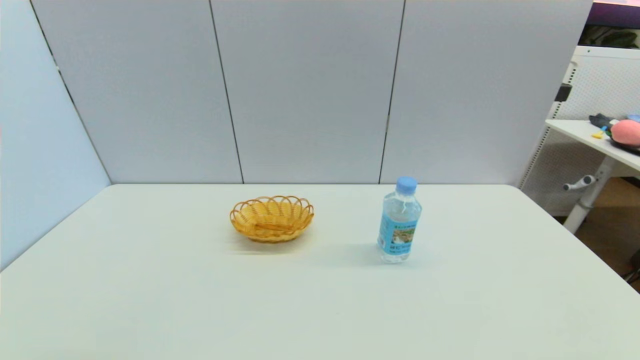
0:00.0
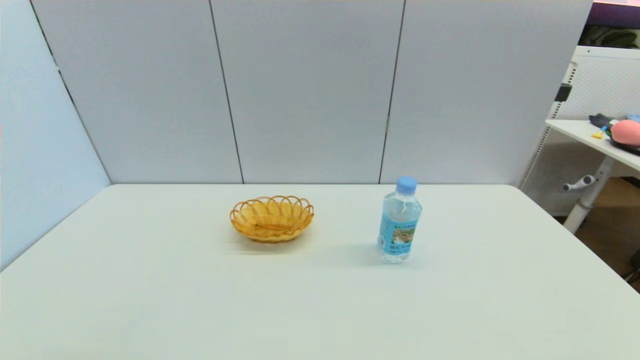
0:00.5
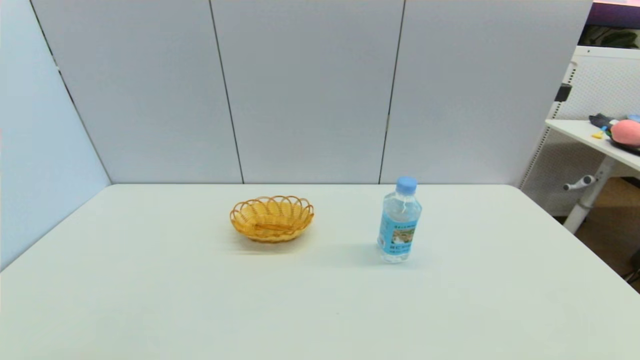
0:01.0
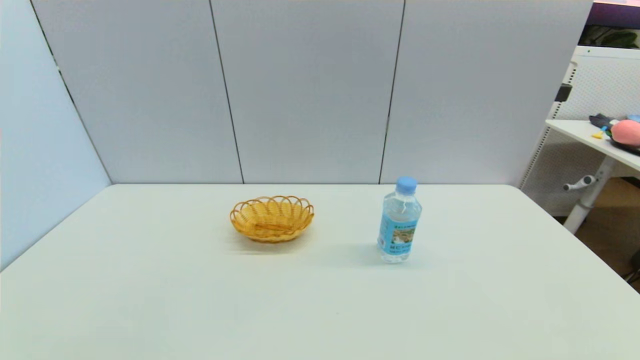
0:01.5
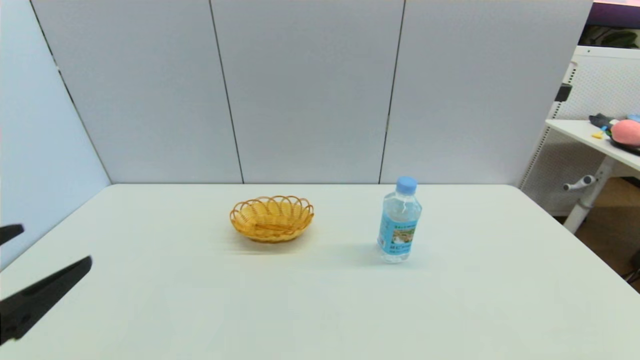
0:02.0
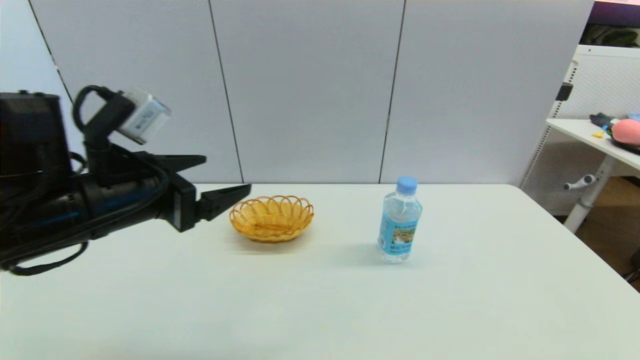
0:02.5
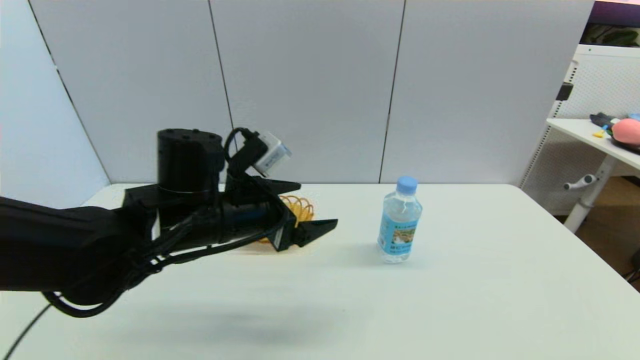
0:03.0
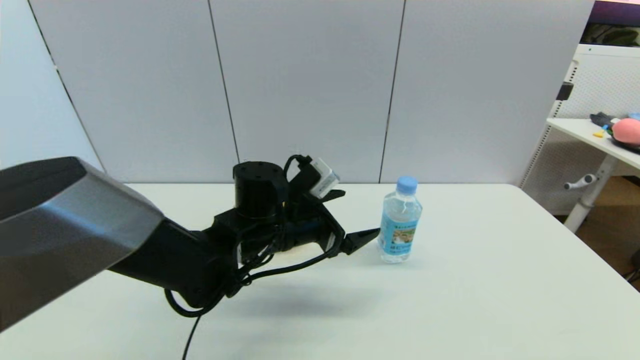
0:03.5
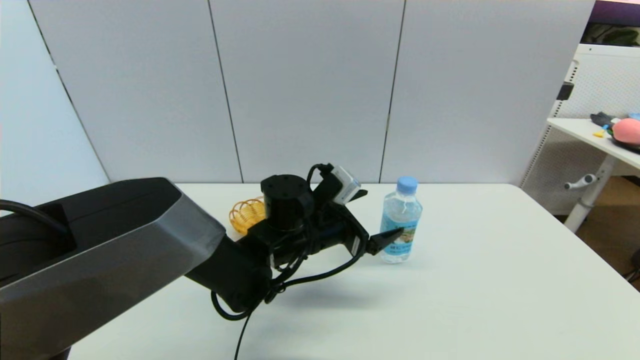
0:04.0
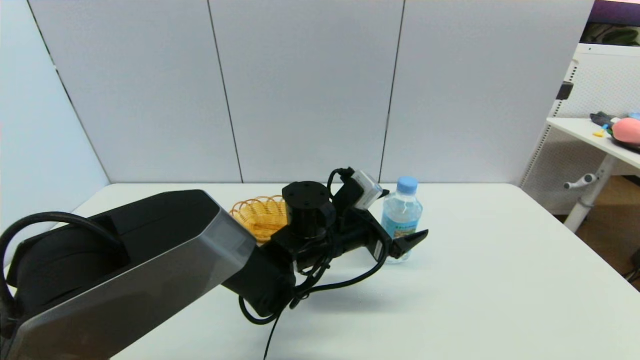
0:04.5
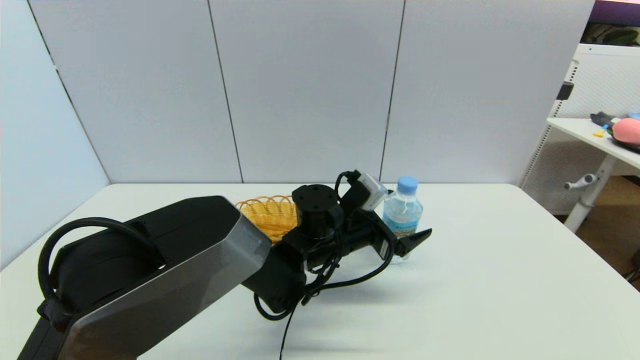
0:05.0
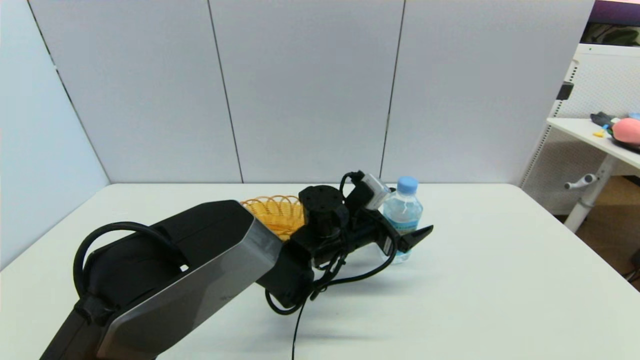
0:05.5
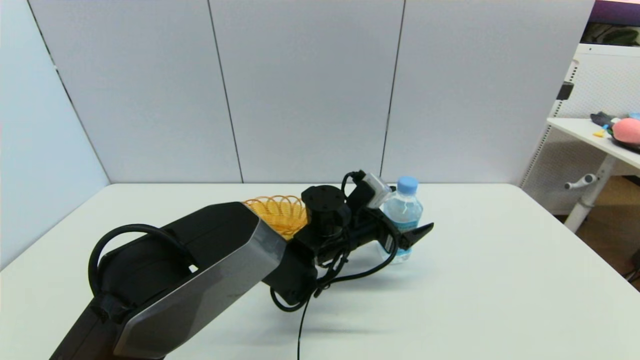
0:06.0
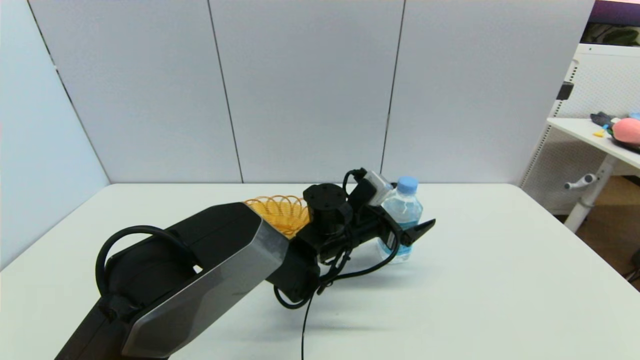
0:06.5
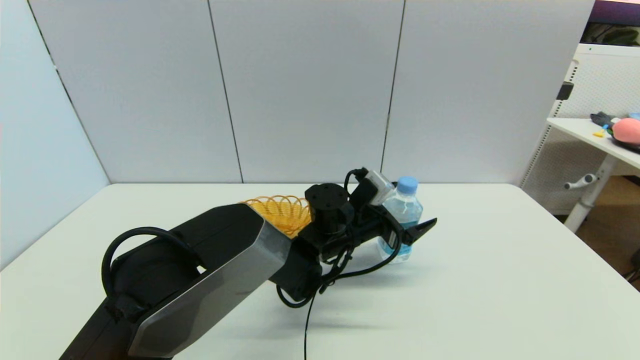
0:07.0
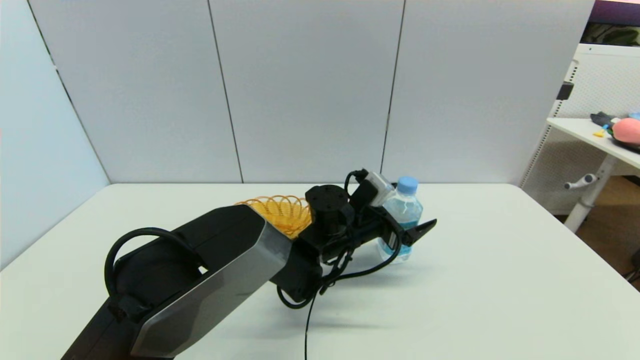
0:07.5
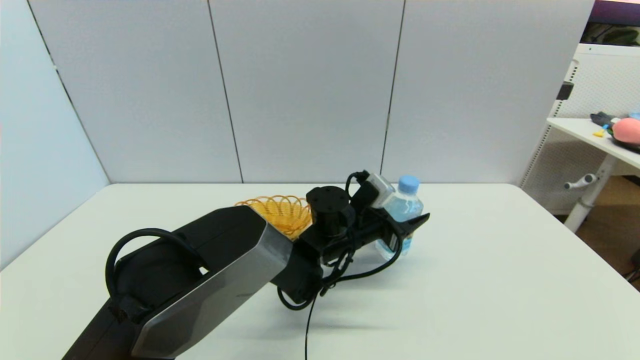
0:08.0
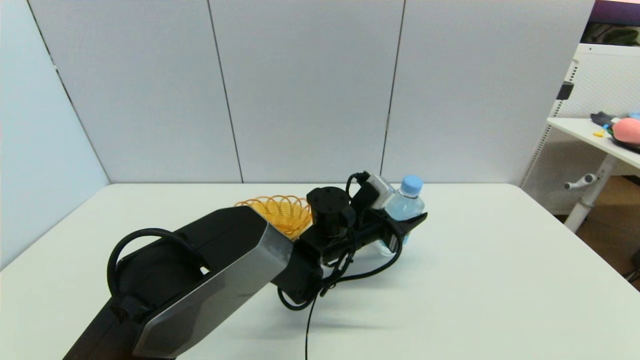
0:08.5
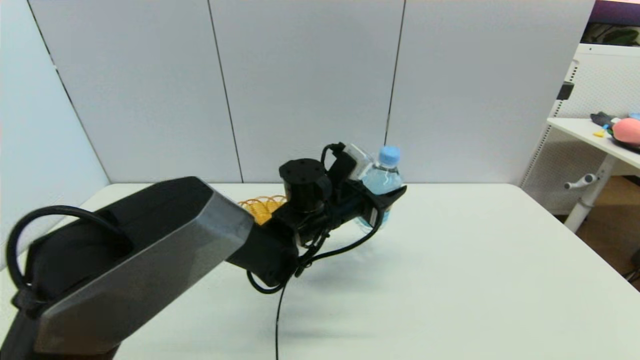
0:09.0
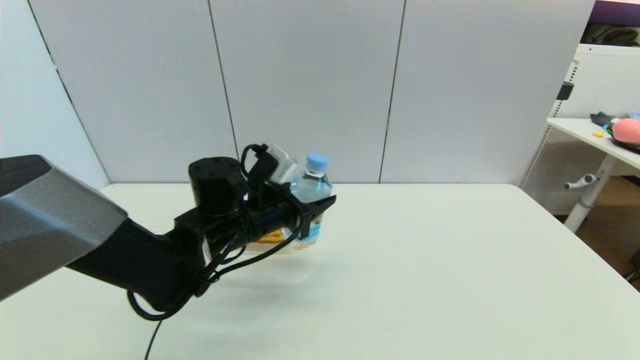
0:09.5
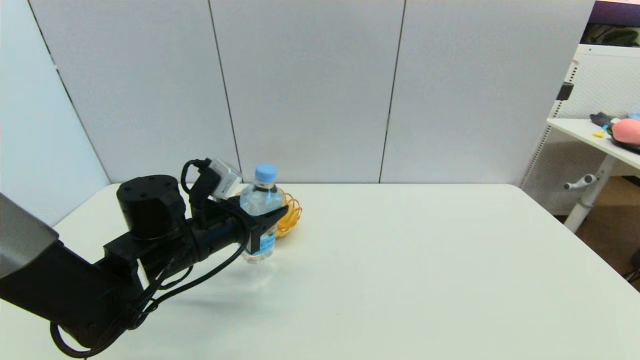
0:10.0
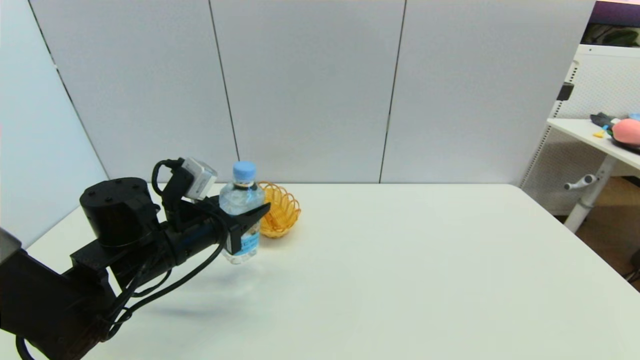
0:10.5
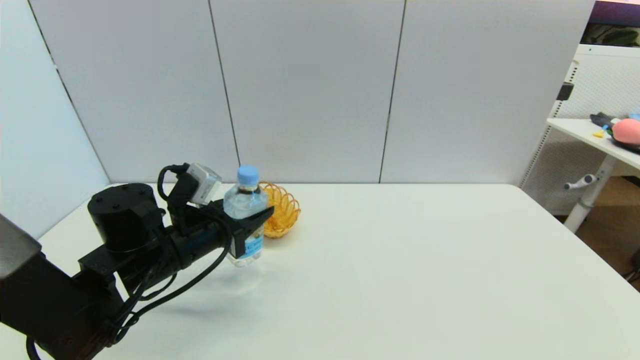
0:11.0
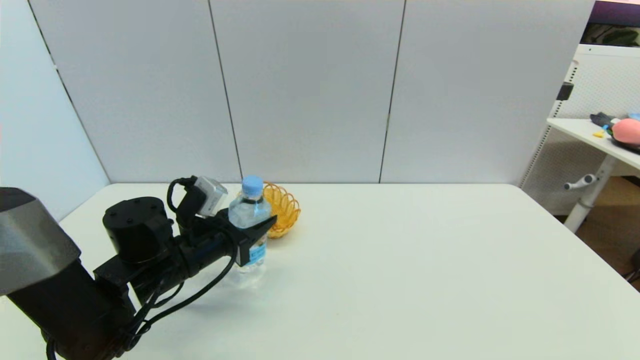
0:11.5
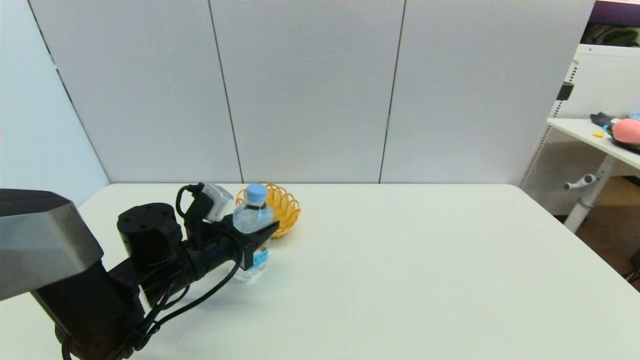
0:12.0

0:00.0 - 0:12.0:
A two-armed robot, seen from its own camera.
Step, 0:01.5 - 0:08.0: Grasp the soda water with left gripper.
0:00.0 - 0:02.0: The left gripper moves upward and forward, approximately 15 cm.
0:02.0 - 0:04.0: The left gripper goes roughly 40 cm to the right, forward and downward.
0:04.0 - 0:06.0: The left gripper moves to the right, about 5 cm.
0:06.0 - 0:08.0: The left gripper closes.
0:08.0 - 0:10.0: The left gripper heads to the left, covering about 20 cm.
0:10.0 - 0:12.0: The grippers stay close to where they were, moving slightly.

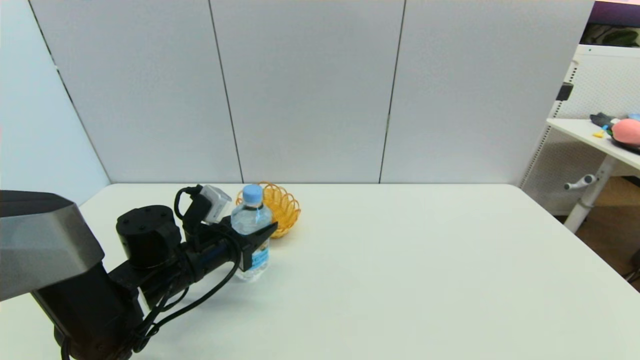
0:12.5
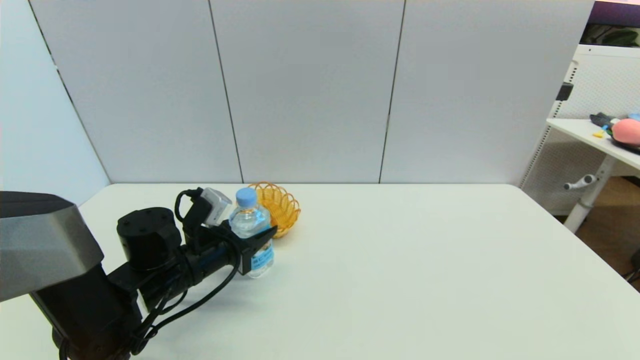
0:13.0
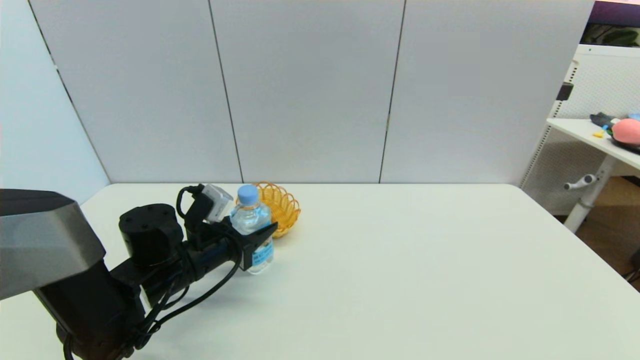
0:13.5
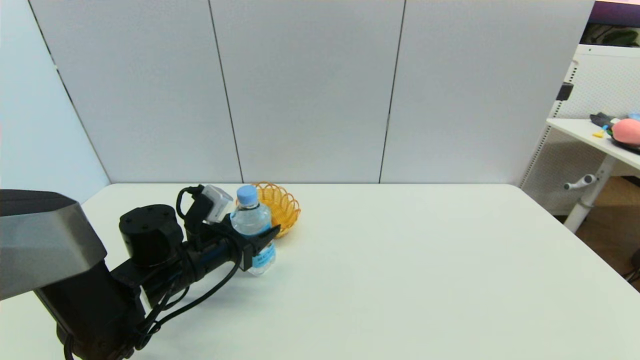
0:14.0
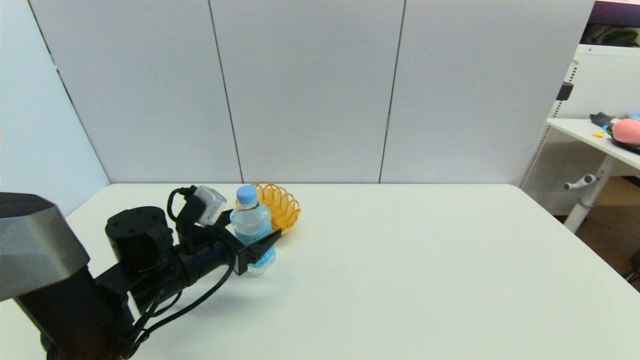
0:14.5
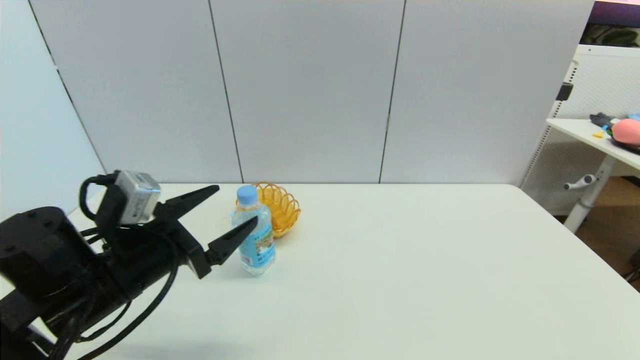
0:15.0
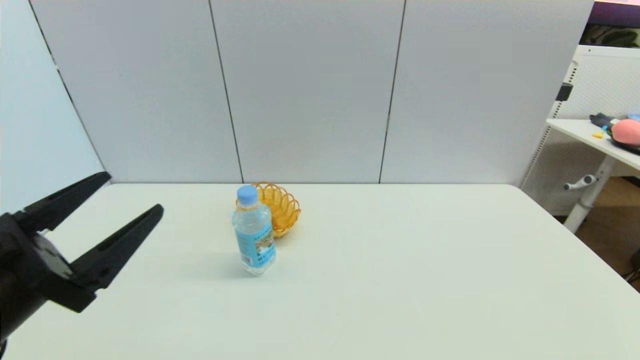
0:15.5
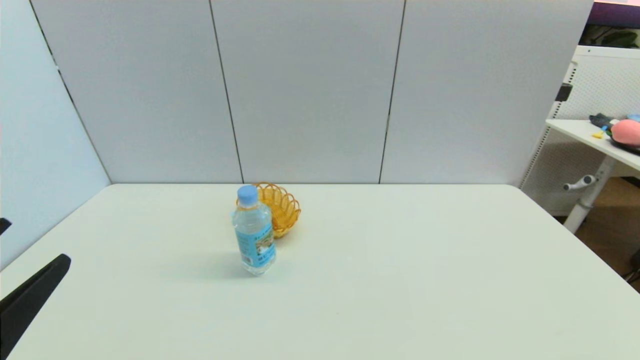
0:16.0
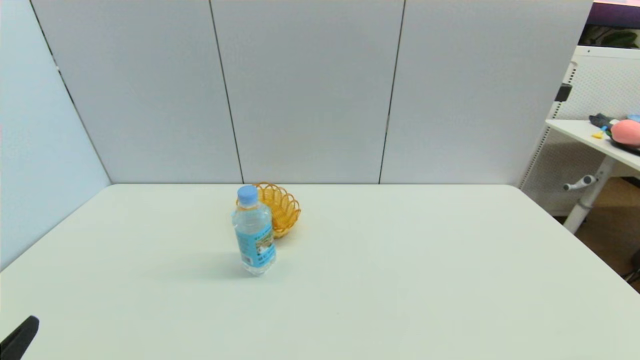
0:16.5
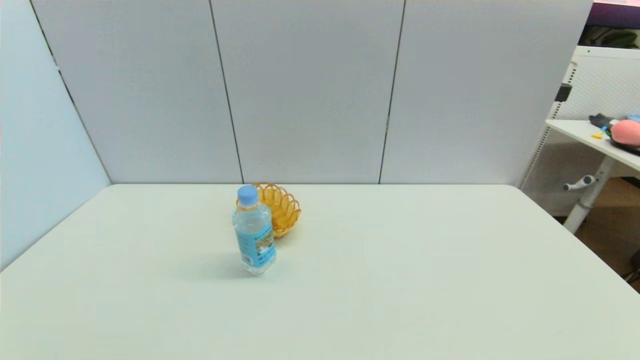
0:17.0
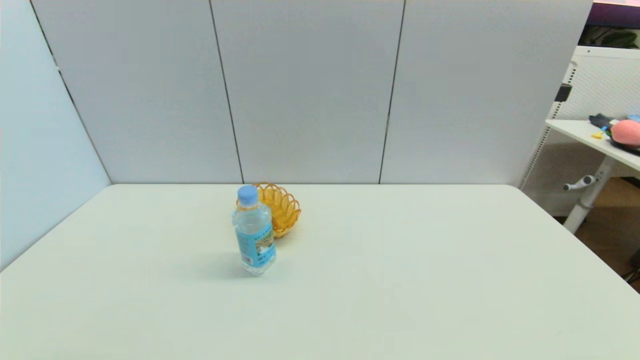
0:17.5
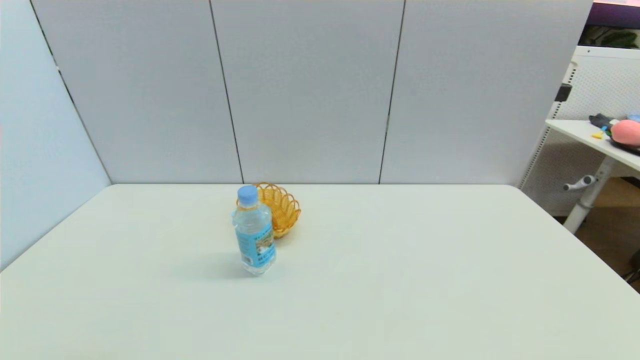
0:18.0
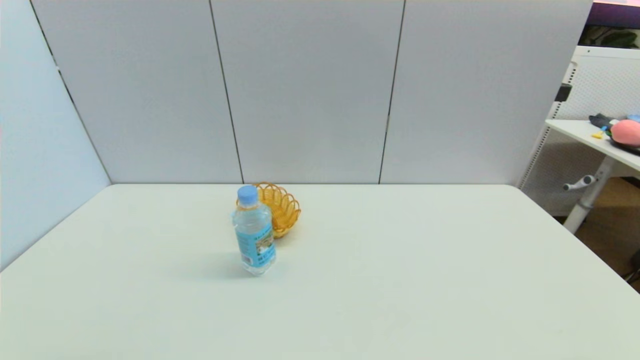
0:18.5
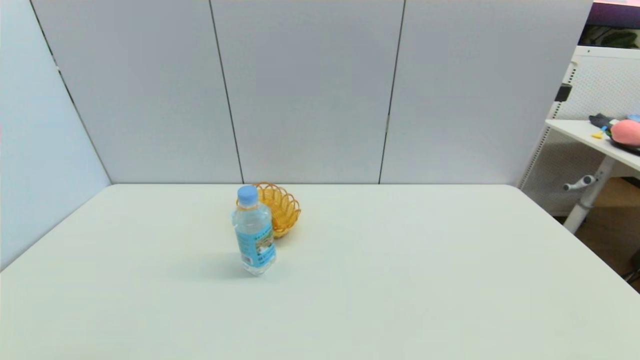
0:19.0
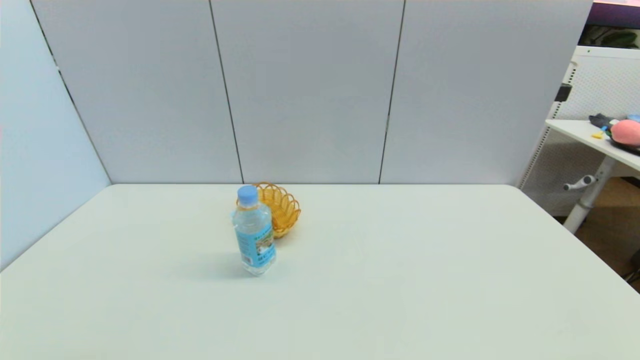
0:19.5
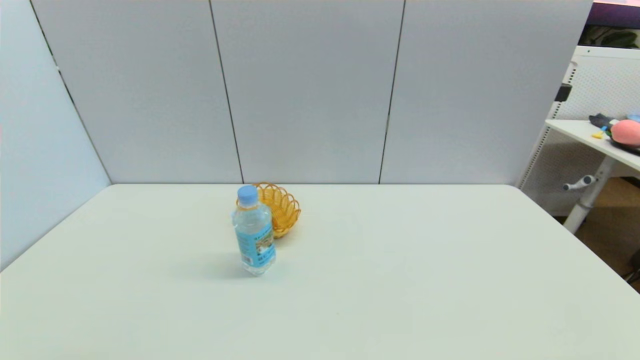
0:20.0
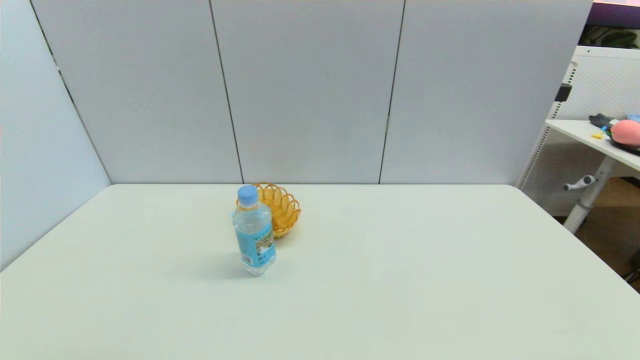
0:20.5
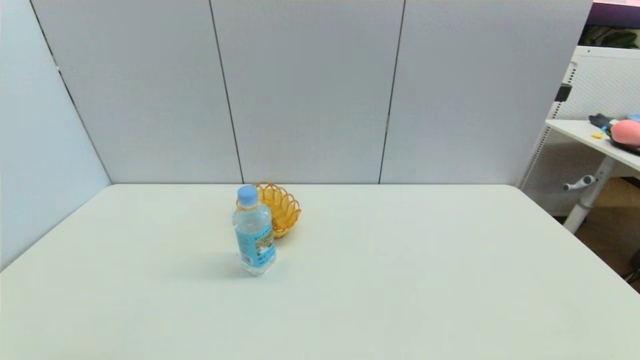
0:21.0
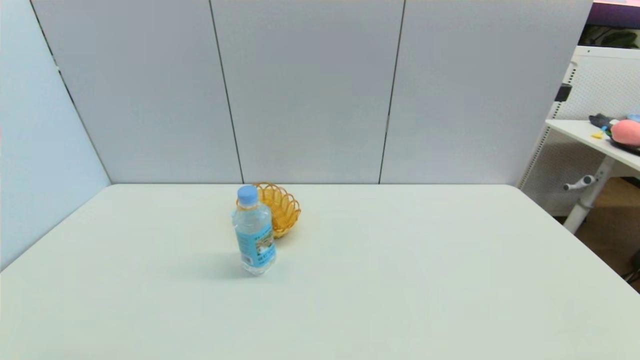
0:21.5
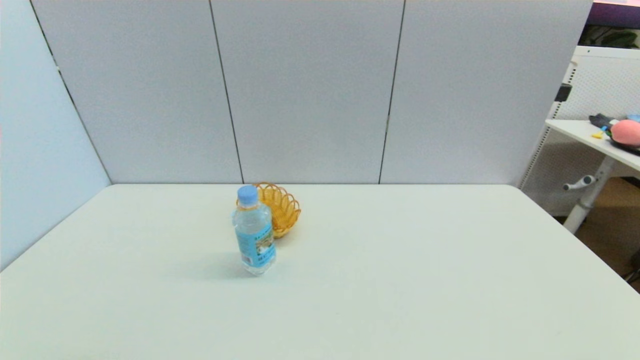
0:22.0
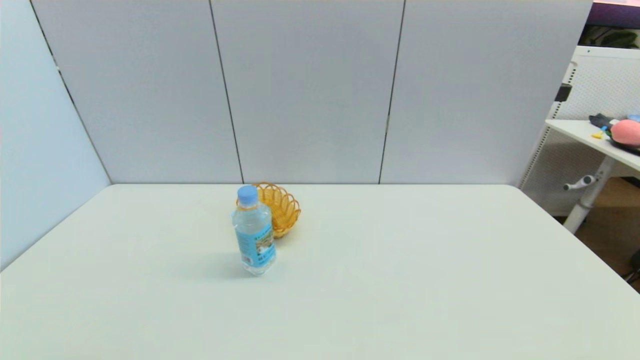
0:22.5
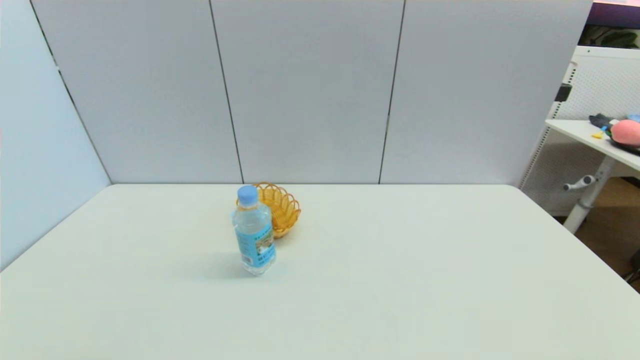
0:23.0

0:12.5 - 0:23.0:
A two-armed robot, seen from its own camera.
0:12.5 - 0:14.5: The left gripper opens up.
0:14.5 - 0:16.5: The left gripper shifts about 30 cm backward and to the left.
0:19.0 - 0:23.0: Both grippers stay put.
